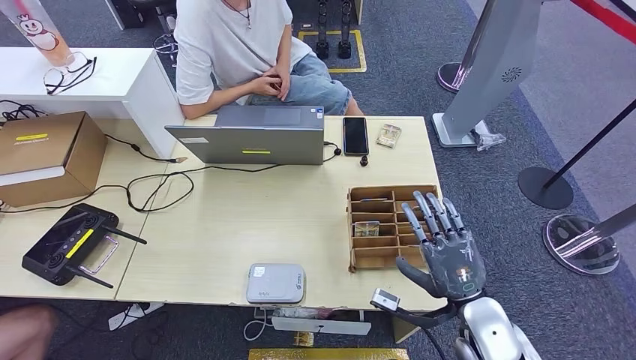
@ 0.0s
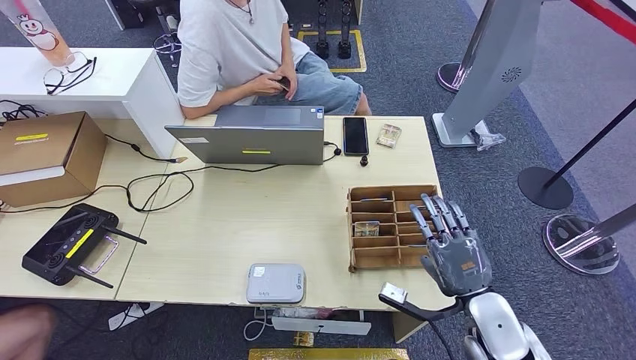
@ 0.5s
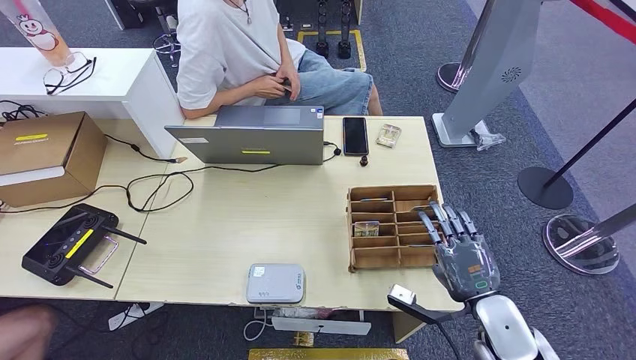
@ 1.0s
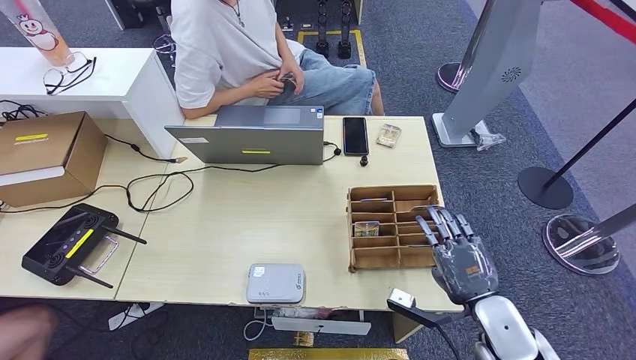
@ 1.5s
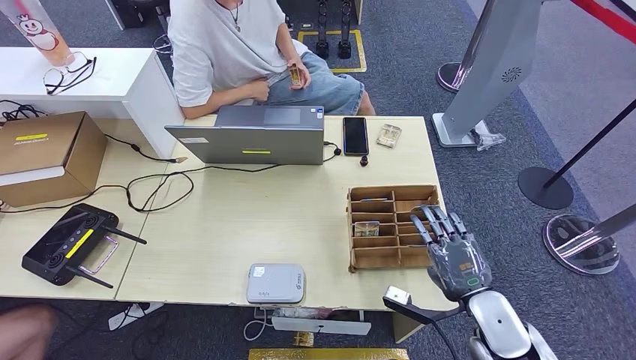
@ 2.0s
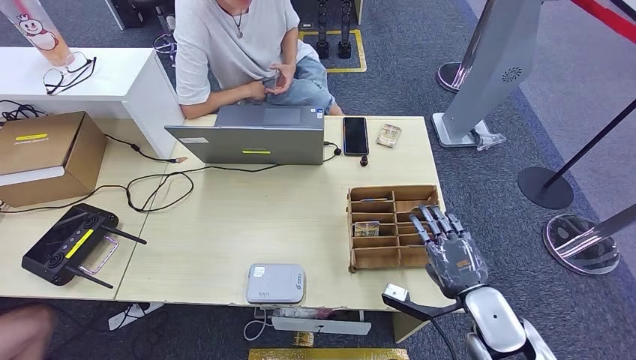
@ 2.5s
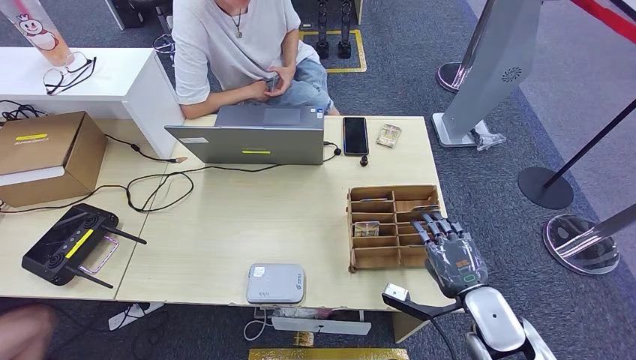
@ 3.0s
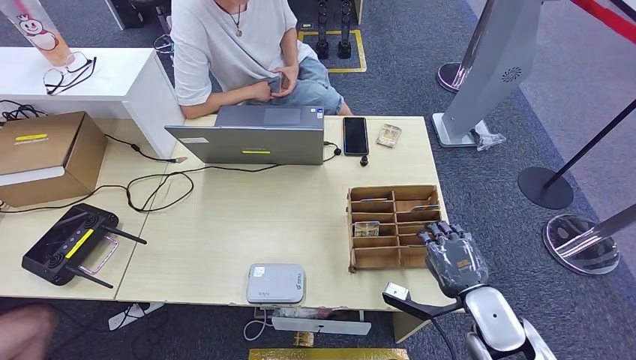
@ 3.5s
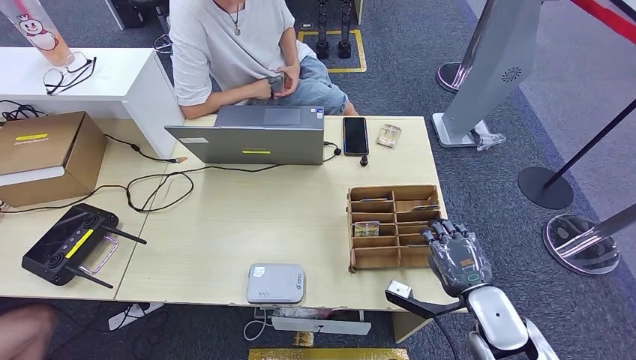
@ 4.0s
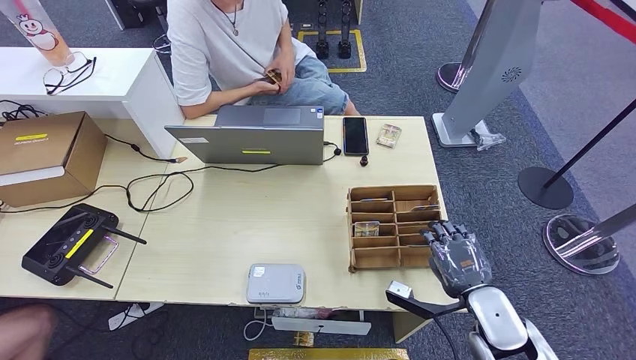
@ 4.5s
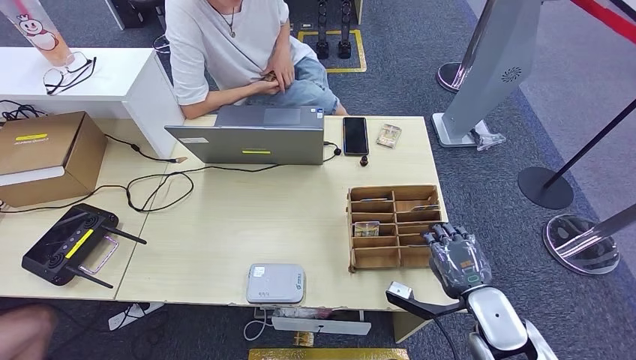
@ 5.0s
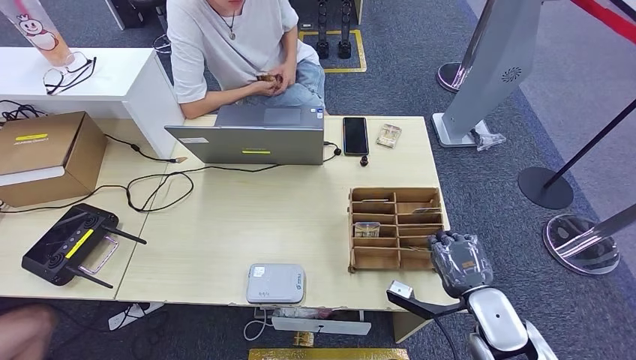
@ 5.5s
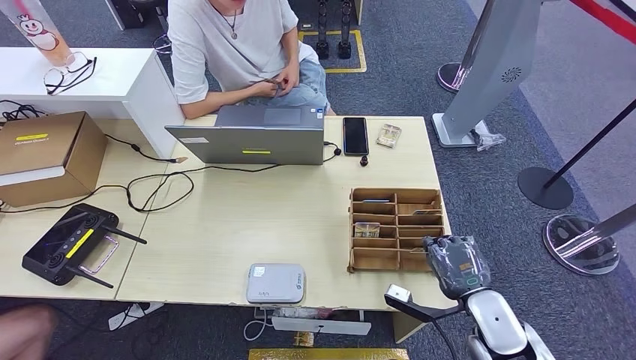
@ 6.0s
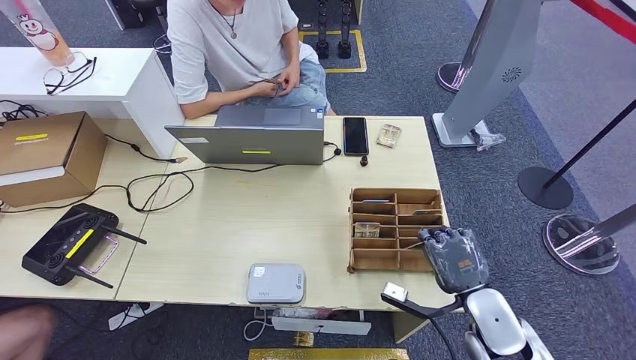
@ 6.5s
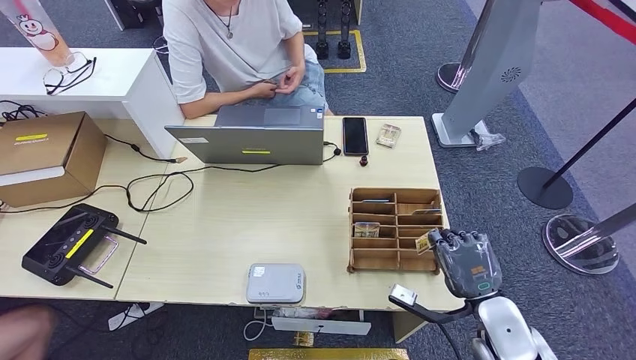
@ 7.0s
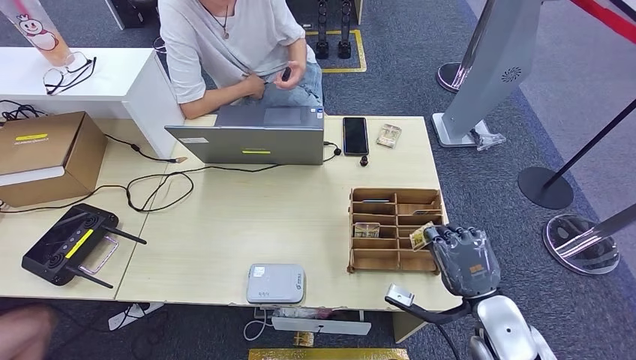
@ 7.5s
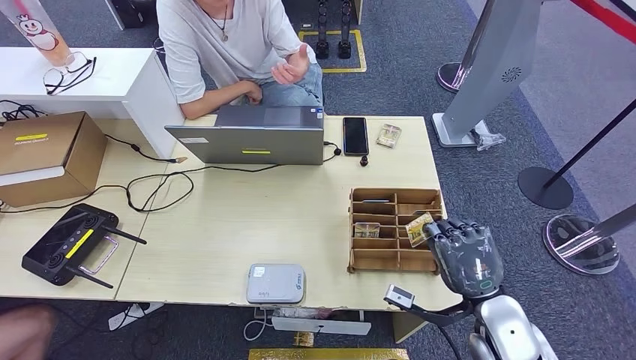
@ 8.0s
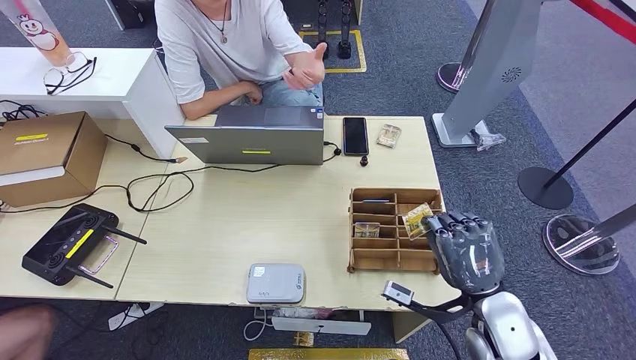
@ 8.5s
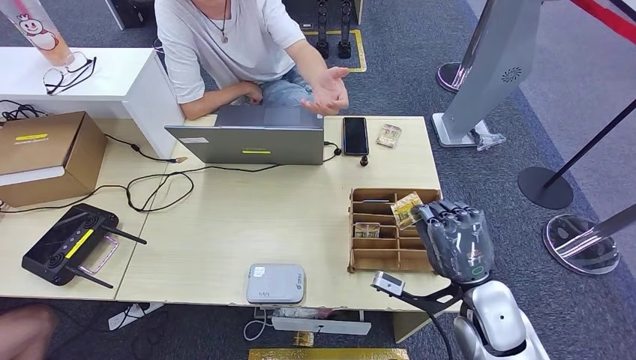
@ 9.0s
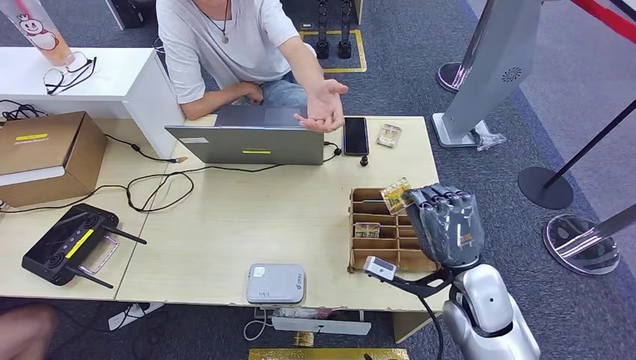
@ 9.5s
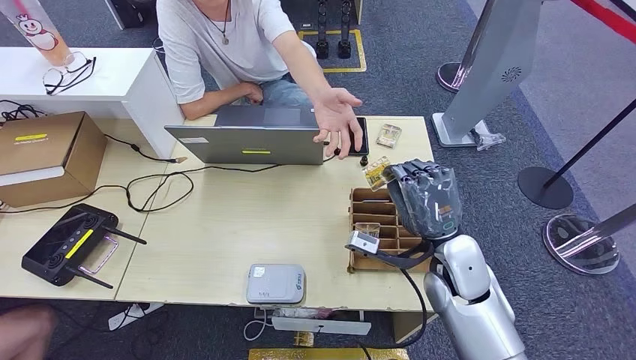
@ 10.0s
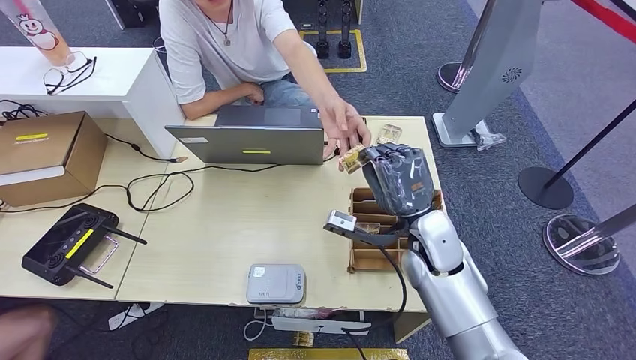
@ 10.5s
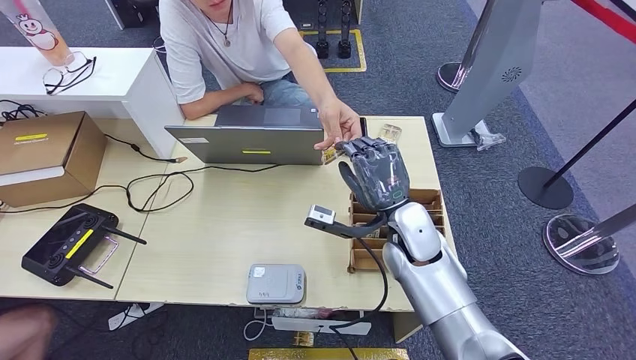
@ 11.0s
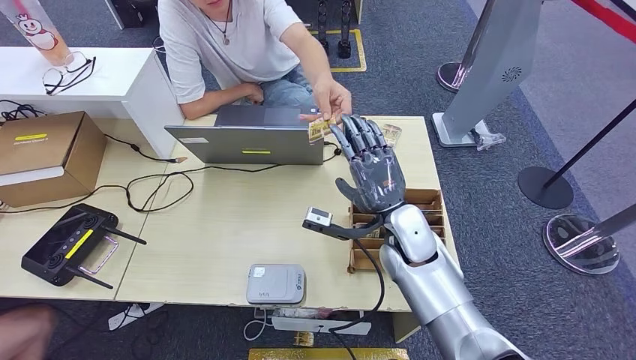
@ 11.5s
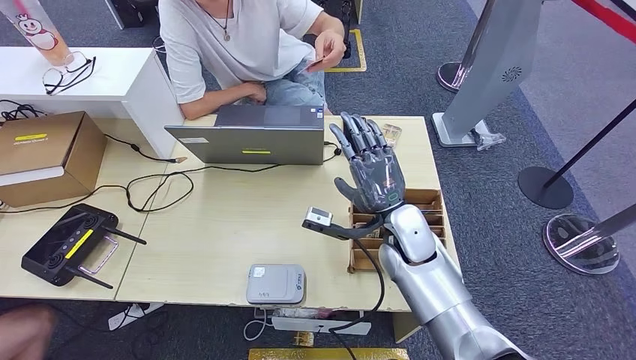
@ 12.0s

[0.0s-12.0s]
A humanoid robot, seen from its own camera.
Step, 0.0s to 6.5s: Pick up the room key from the key card box.
Step, 7.0s to 12.0s: Hand the room key to the person.
2.0s to 4.0s: Both hands stay about where they are.
4.0s to 6.0s: Both hands stay about where they are.
8.0s to 10.0s: The right hand heads forward and to the left, covering some 10 cm.
10.0s to 12.0s: The right hand is displaced to the left and forward by about 10 cm.
